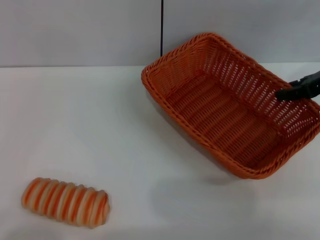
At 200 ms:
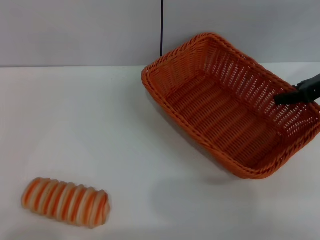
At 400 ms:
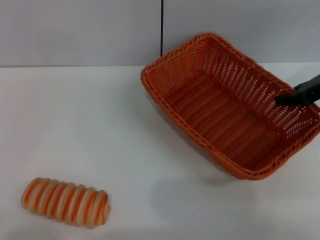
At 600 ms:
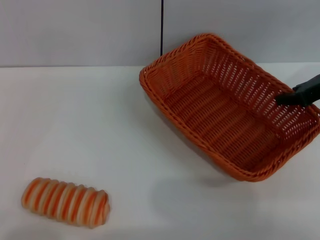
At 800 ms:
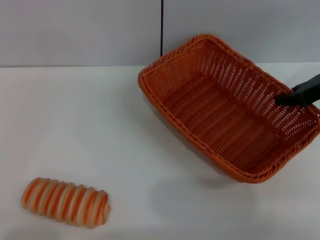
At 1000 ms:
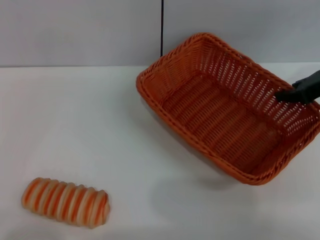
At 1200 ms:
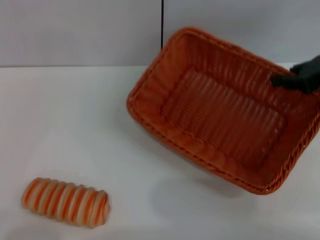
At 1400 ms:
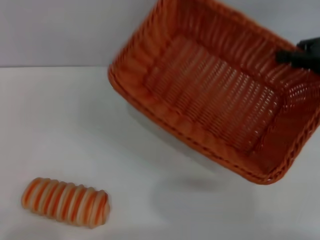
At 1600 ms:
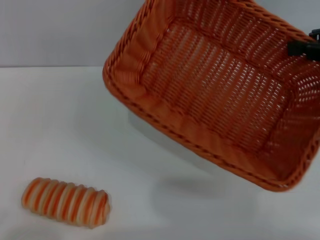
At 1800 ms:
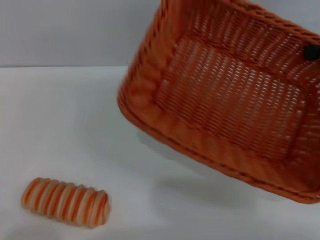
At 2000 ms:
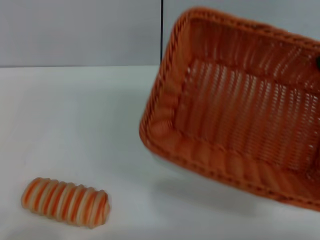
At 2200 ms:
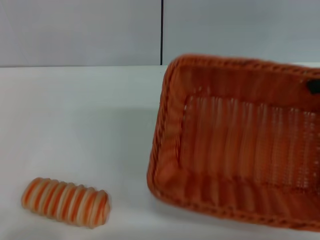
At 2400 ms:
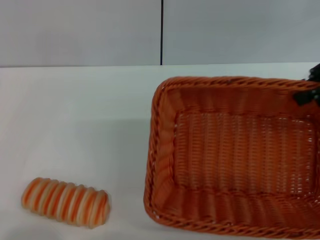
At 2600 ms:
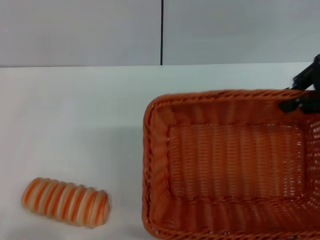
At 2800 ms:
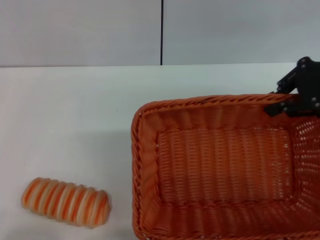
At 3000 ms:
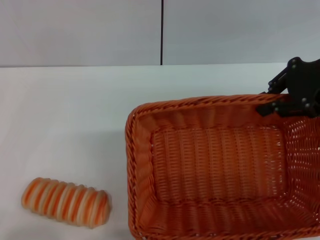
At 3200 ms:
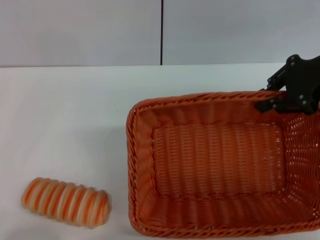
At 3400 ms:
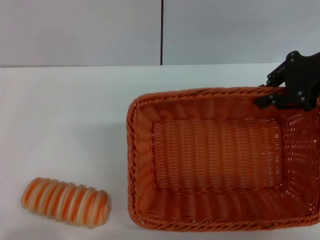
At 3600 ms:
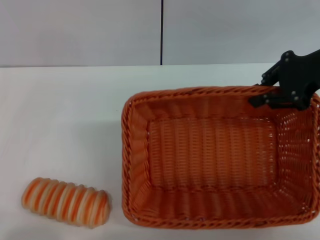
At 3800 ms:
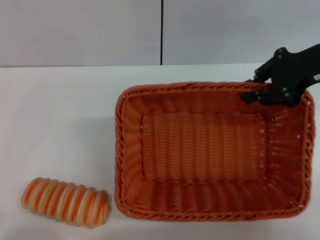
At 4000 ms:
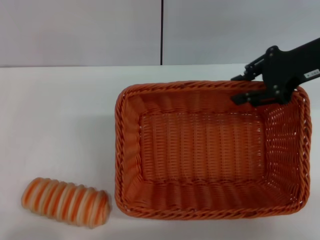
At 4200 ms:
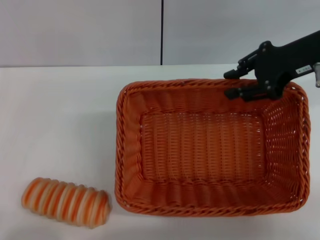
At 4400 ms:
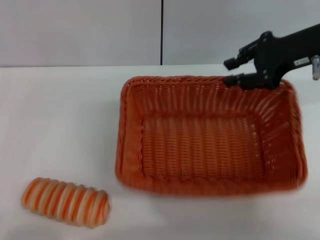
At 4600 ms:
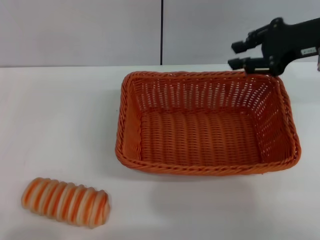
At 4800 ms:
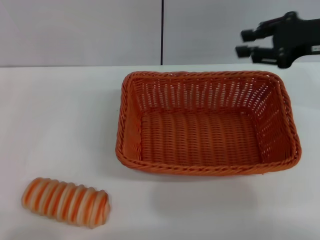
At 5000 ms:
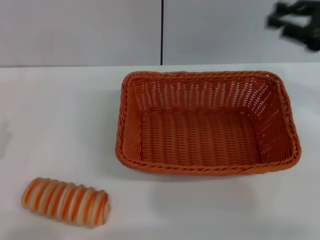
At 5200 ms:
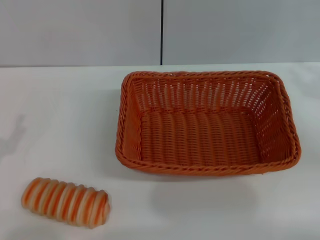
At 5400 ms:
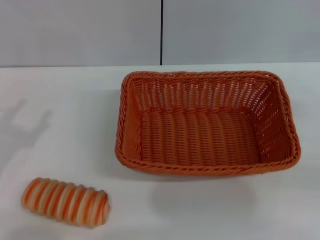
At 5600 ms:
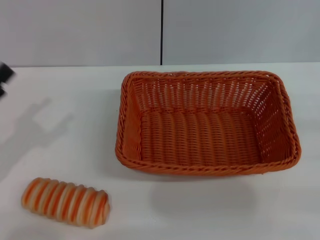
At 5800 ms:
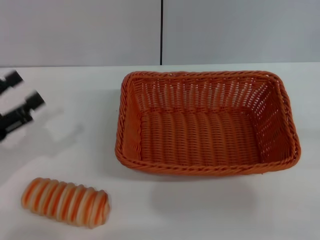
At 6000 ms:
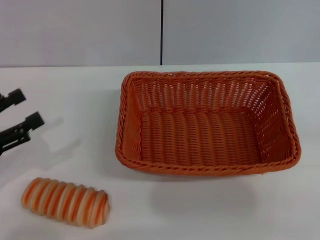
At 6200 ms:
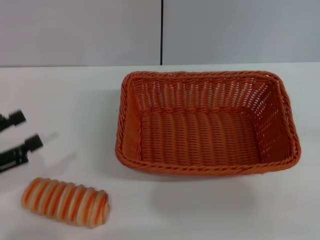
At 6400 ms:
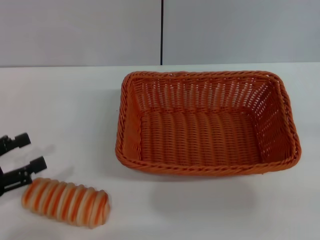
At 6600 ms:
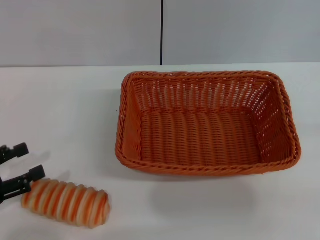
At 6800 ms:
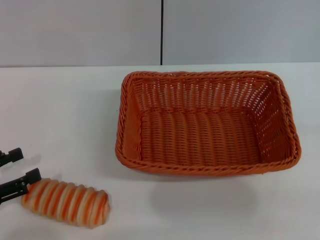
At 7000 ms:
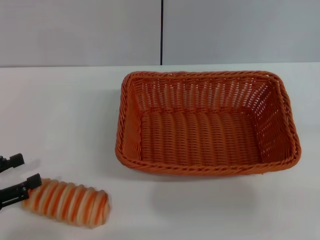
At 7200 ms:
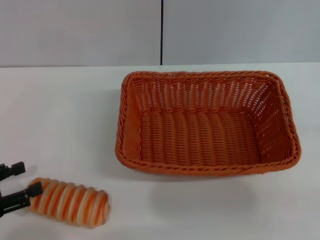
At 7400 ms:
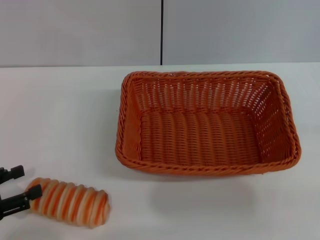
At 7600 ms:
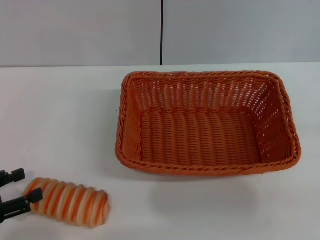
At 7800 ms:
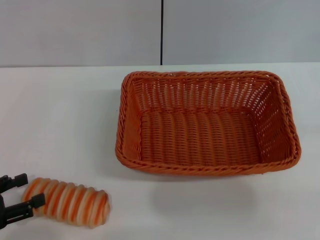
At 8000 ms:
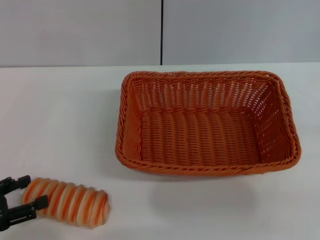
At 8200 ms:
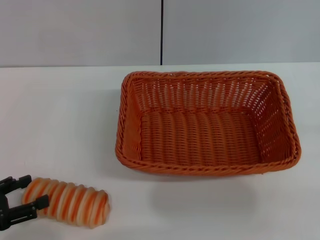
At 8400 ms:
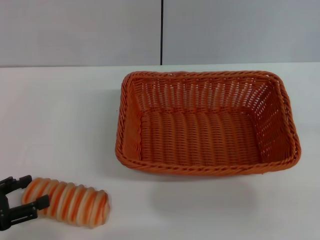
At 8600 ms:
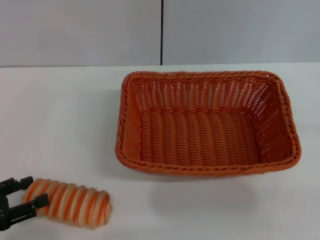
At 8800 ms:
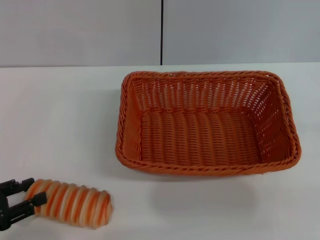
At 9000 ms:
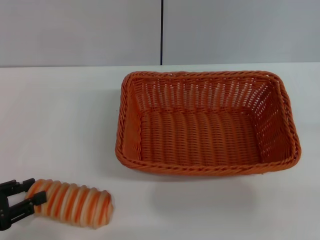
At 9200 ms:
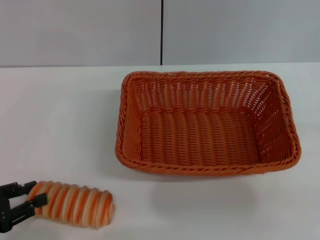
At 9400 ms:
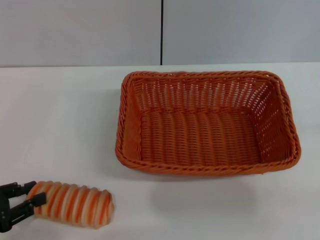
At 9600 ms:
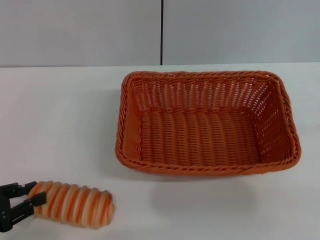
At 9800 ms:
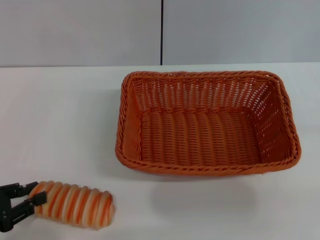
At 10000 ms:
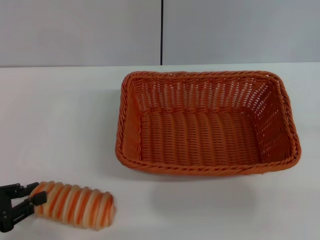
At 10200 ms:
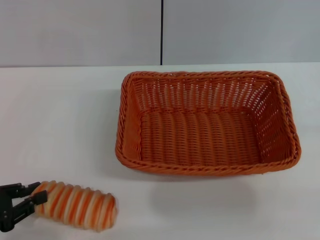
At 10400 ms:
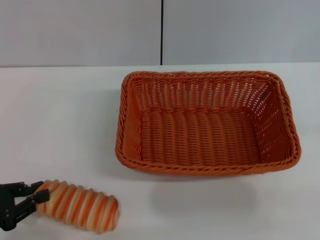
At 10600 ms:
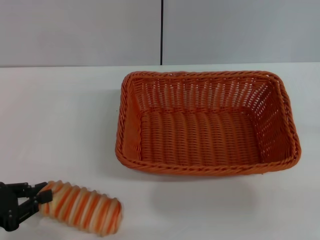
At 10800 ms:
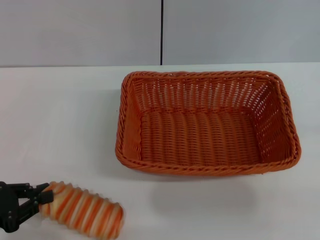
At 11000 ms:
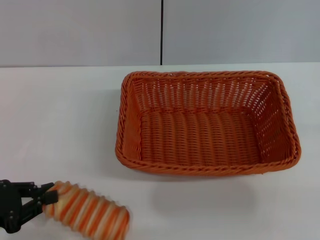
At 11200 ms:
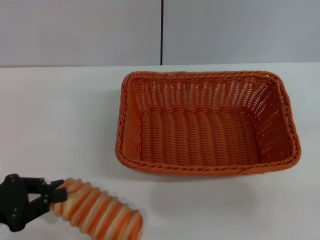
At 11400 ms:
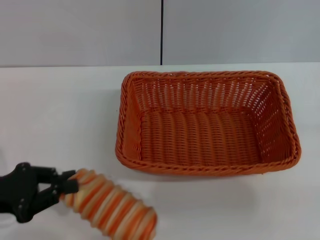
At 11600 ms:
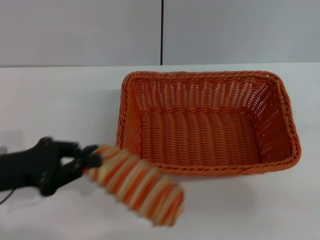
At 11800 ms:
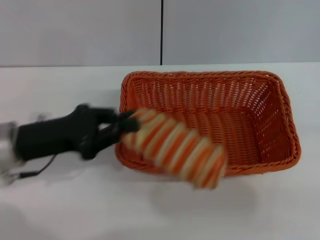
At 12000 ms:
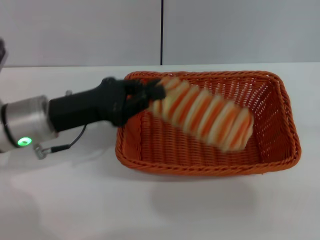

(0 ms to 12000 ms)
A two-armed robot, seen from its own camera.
Step, 1800 ms - 4600 ms: Place the light basket in the center of view with the right gripper.
Step, 4800 ms - 11400 ms: Pick up the long bread with the left gripper.
0 ms - 1600 ms: The right gripper shifts about 5 cm upward, and closes.
1600 ms - 3000 ms: The right gripper moves to the left, about 5 cm.
4400 ms - 6000 ms: The left gripper heads forward and upward, covering approximately 10 cm; the right gripper heads to the right, backward and downward, covering some 30 cm, and opens its fingers.
6000 ms - 7600 ms: The left gripper changes place by some 5 cm.
7600 ms - 9000 ms: The two grippers keep their place.
9000 ms - 10400 ms: The left gripper closes up.
10400 ms - 12000 ms: The left gripper shifts some 15 cm to the right, forward and upward.

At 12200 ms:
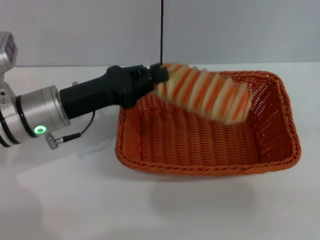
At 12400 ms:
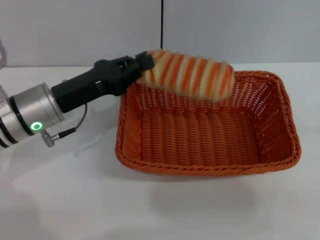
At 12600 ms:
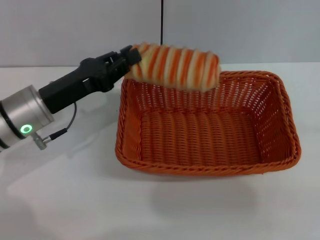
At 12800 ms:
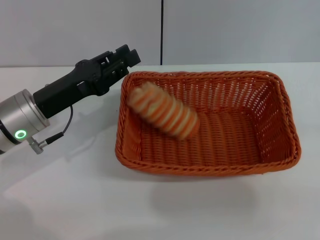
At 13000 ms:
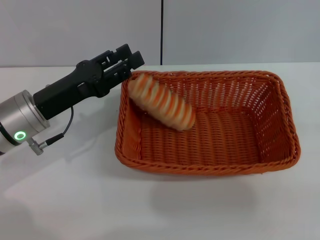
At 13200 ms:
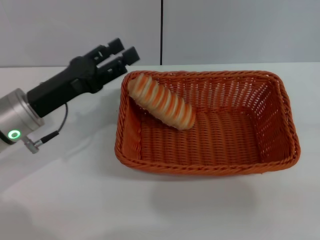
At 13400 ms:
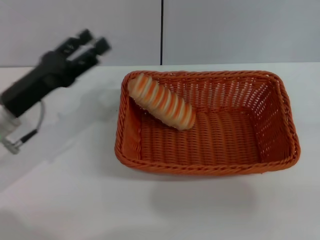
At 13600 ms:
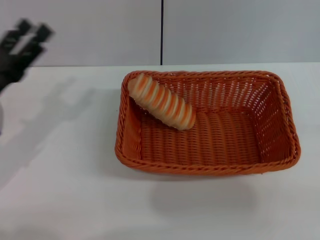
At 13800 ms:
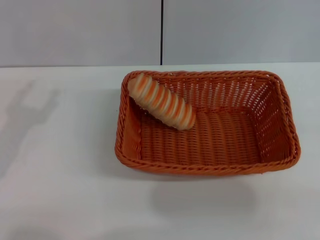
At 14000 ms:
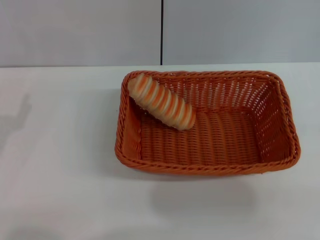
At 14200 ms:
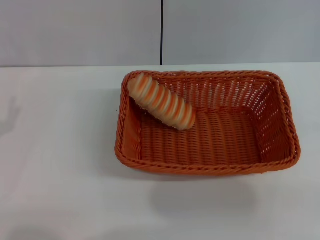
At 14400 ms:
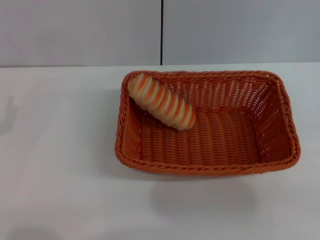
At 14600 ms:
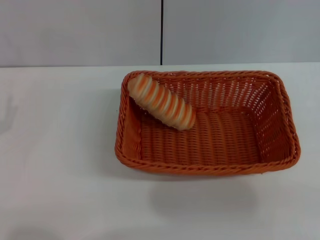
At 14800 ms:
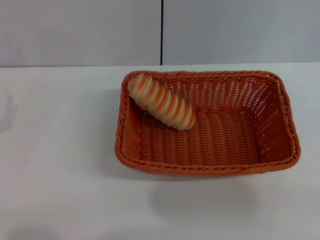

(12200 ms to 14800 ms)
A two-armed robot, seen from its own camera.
Step, 12200 ms - 13200 ms: Place the long bread into the light basket with the left gripper.
12200 ms - 13400 ms: The left gripper shifts by roughly 5 cm, and opens up.
13400 ms - 14800 ms: The left gripper goes roughly 10 cm backward and to the left.
